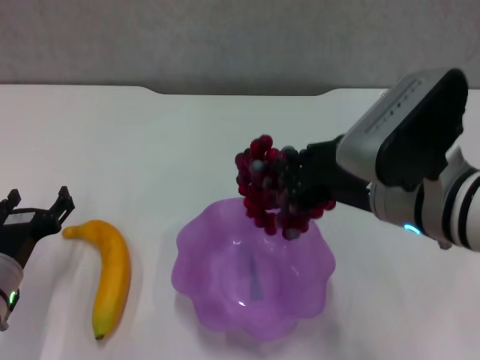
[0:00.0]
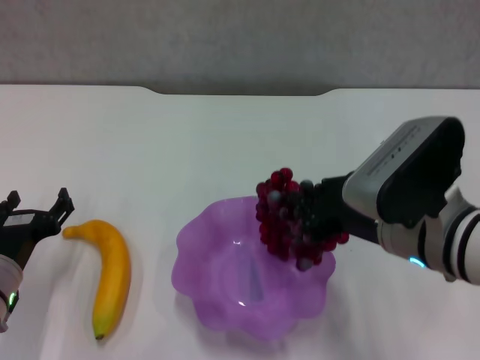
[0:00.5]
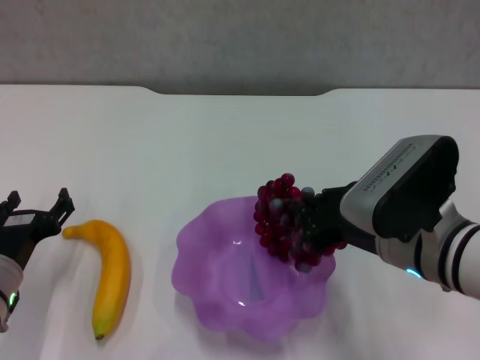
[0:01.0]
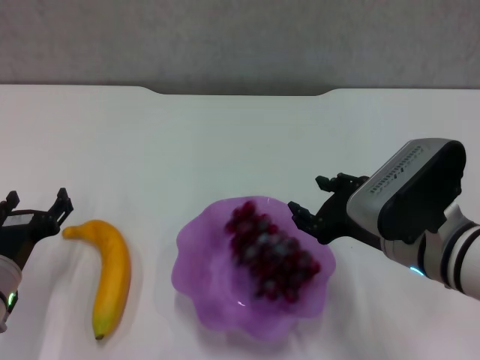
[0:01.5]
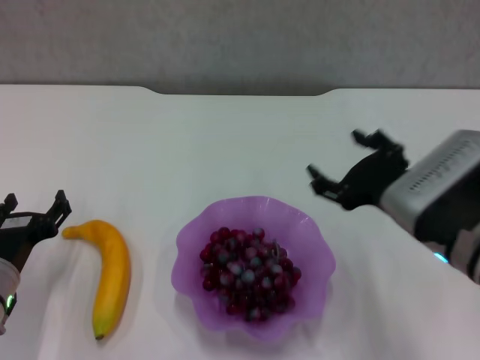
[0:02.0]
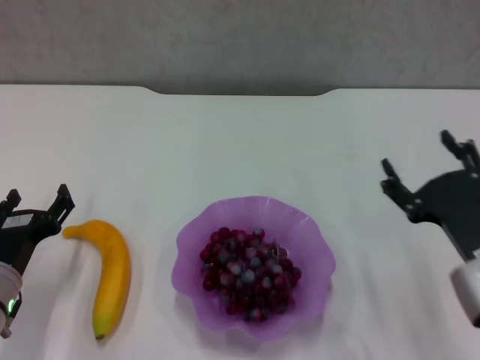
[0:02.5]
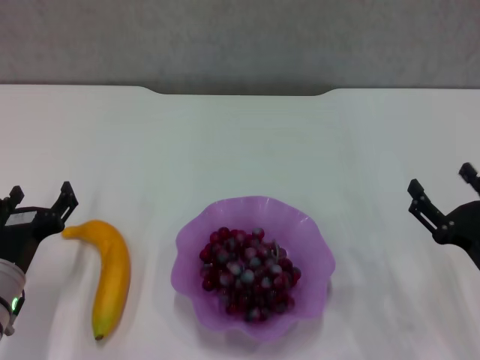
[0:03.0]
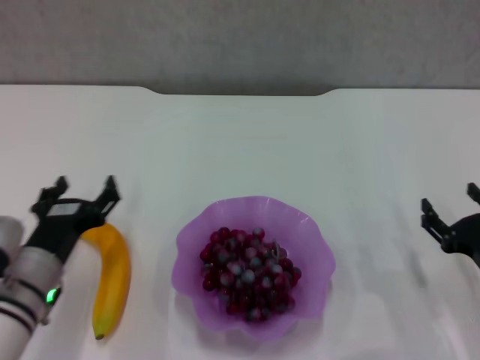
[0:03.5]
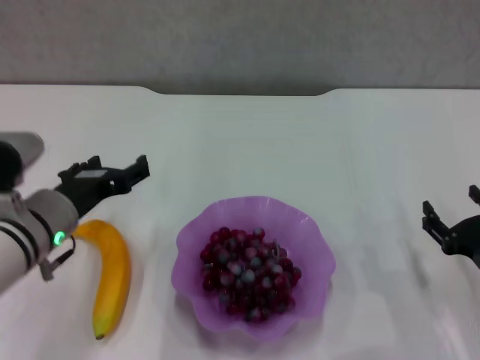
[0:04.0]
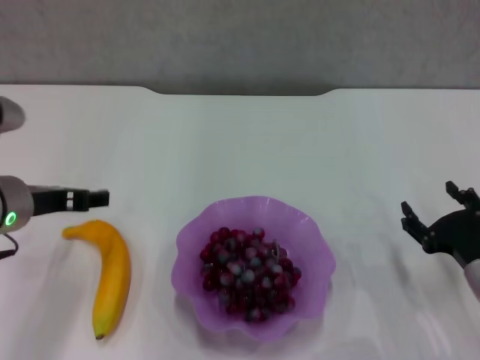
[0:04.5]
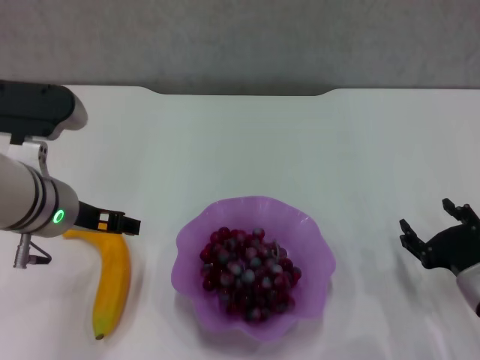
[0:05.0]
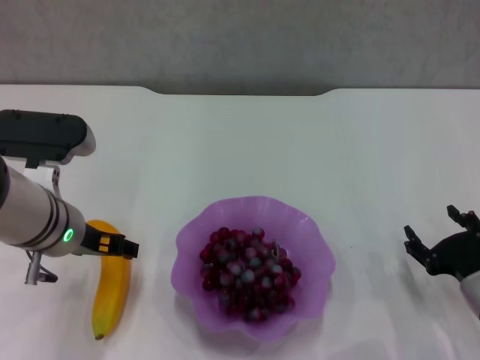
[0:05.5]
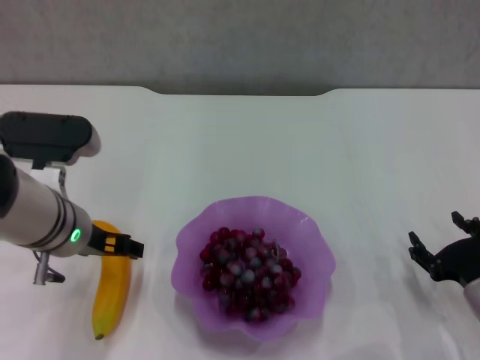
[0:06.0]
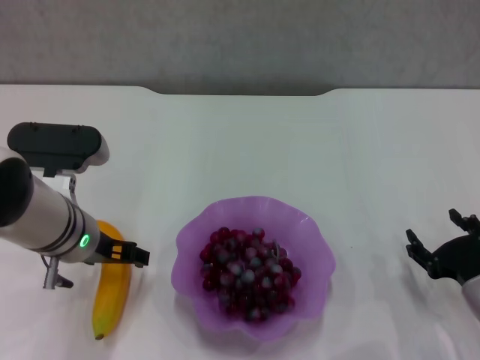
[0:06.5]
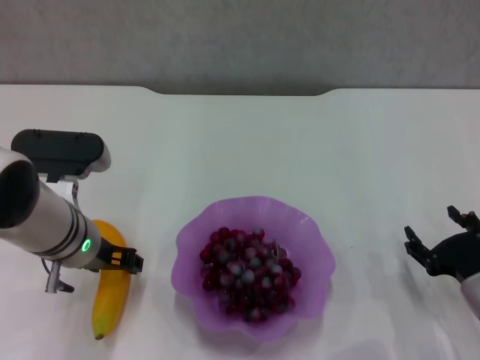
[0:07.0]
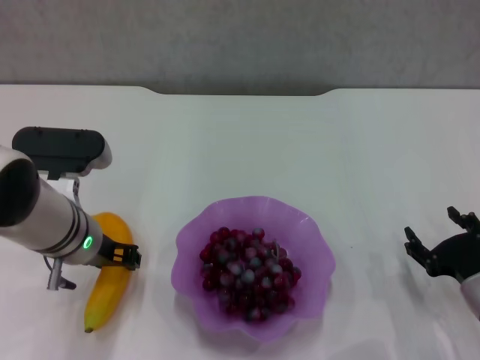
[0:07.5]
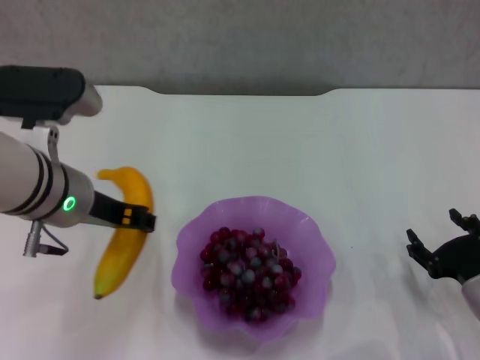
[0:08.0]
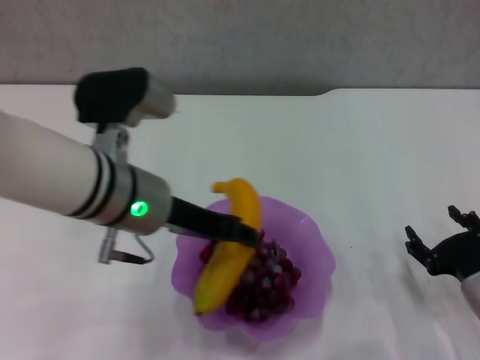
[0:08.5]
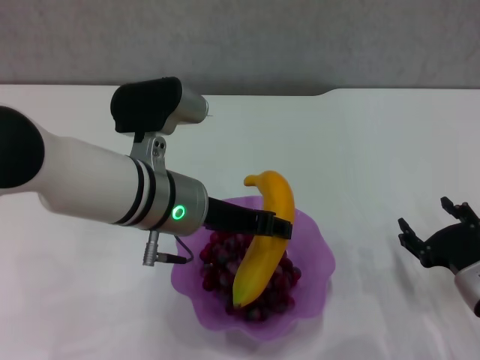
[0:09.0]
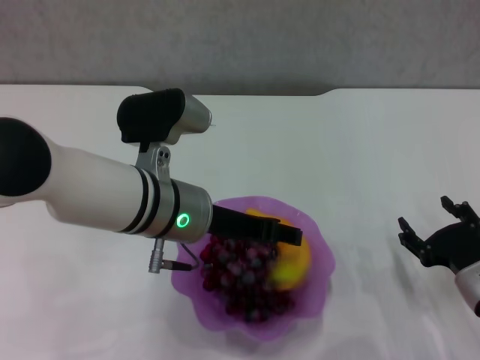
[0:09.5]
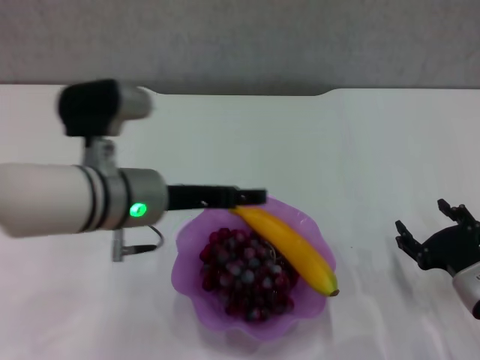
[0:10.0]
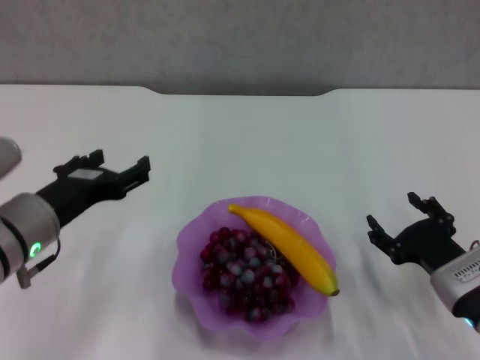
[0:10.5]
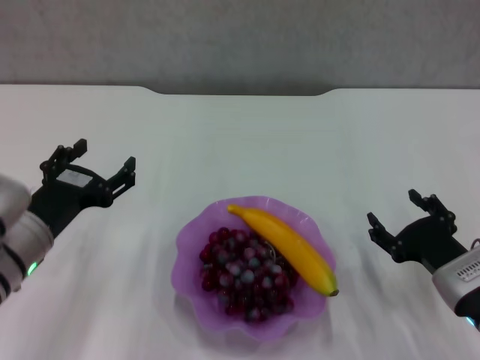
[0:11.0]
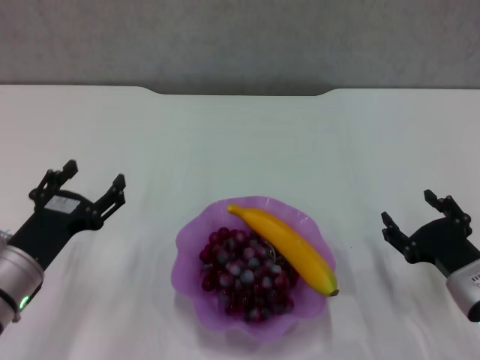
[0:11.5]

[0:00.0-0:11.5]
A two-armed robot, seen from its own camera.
Step, 0:02.0 to 0:07.0: Grasp the banana with left gripper.
Step, 0:07.5 to 0:09.5: Place the banana in the purple plate with left gripper.
0:00.0 to 0:02.0: The right gripper ends up some 5 cm from where it was, and opens up.
0:02.0 to 0:04.0: The left gripper travels upward and to the right by roughly 10 cm; the right gripper moves downward and to the right, some 15 cm.
0:06.0 to 0:07.5: The left gripper closes up.
0:07.5 to 0:09.5: The left gripper is displaced to the right by approximately 10 cm.
0:09.5 to 0:11.5: The left gripper is displaced to the left and downward by about 20 cm, and opens its fingers.
